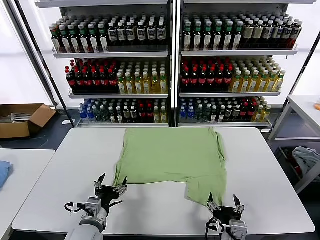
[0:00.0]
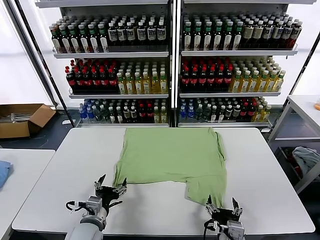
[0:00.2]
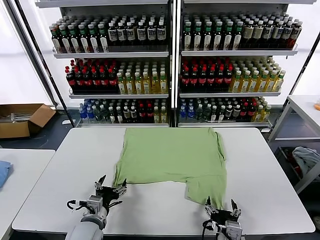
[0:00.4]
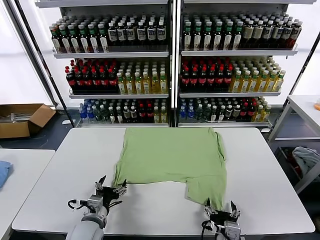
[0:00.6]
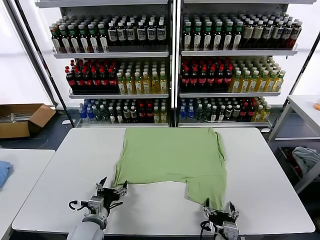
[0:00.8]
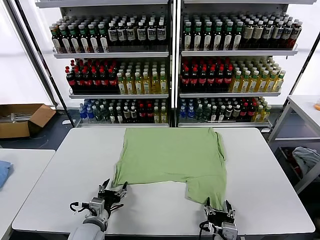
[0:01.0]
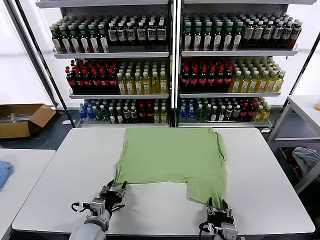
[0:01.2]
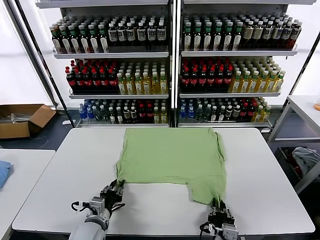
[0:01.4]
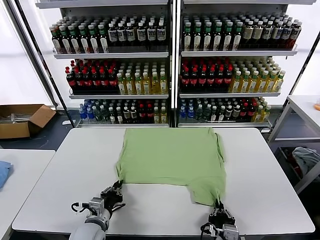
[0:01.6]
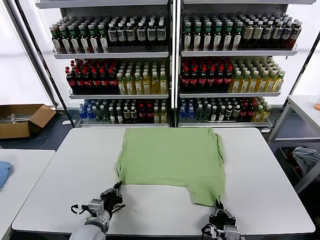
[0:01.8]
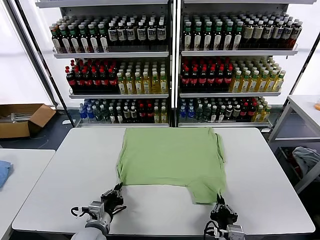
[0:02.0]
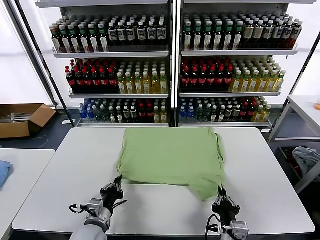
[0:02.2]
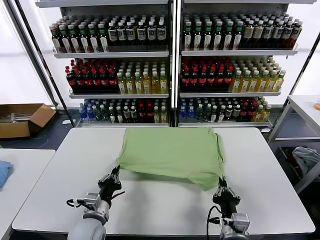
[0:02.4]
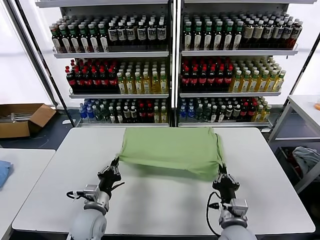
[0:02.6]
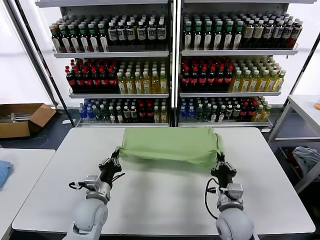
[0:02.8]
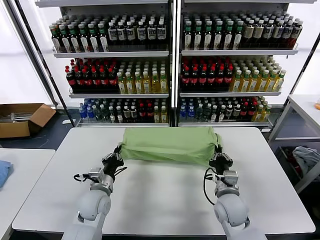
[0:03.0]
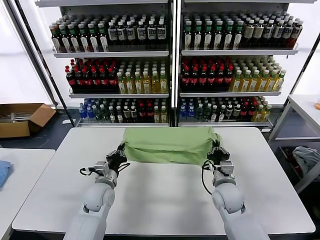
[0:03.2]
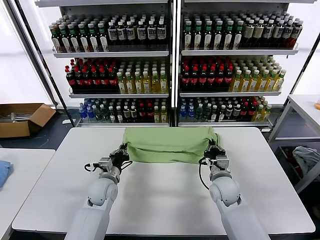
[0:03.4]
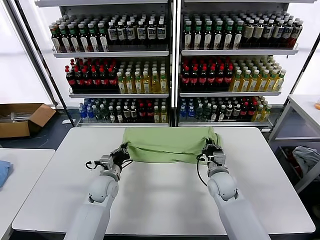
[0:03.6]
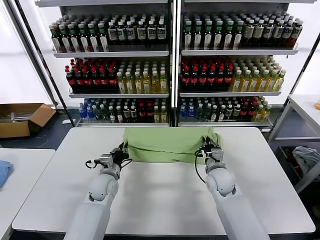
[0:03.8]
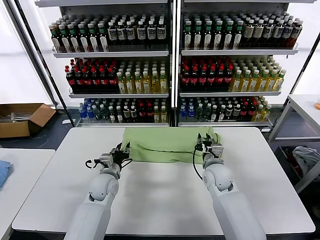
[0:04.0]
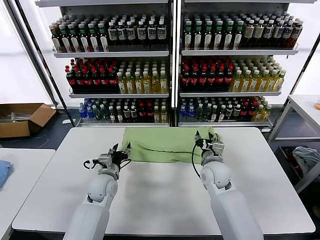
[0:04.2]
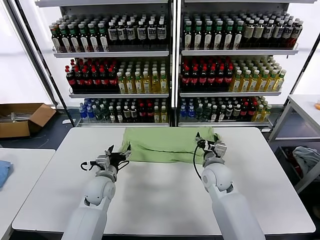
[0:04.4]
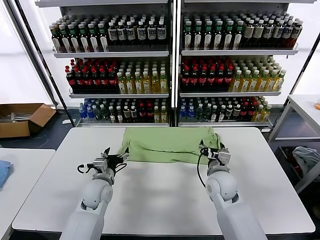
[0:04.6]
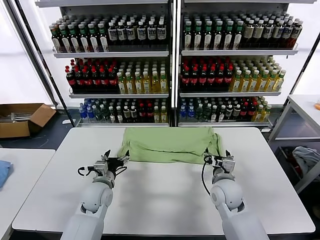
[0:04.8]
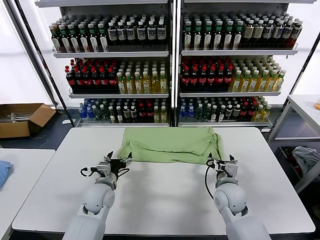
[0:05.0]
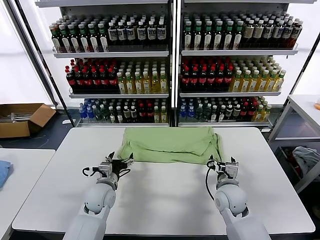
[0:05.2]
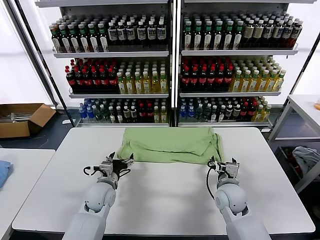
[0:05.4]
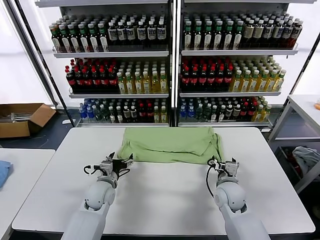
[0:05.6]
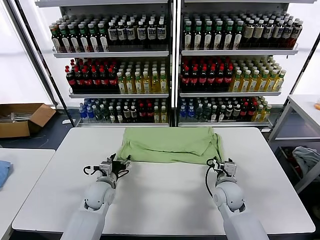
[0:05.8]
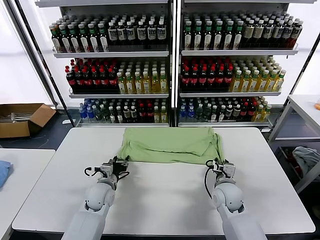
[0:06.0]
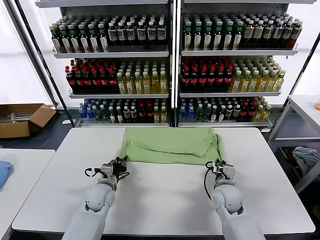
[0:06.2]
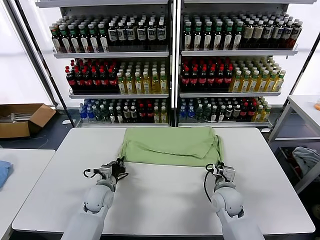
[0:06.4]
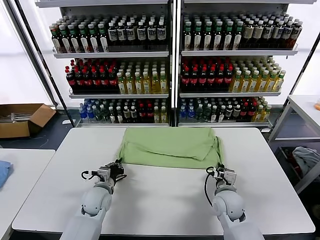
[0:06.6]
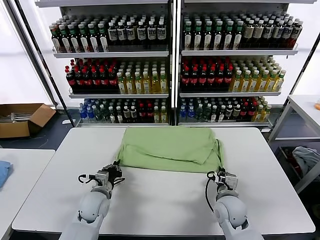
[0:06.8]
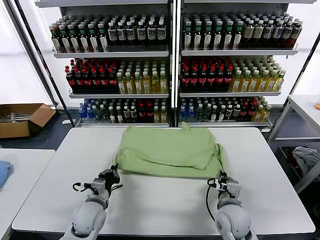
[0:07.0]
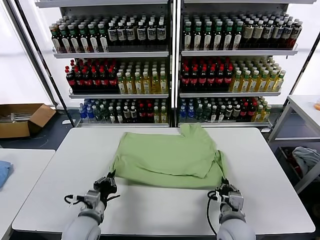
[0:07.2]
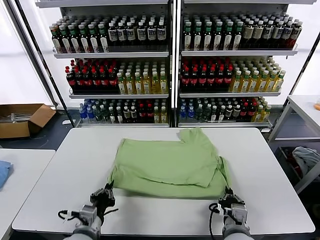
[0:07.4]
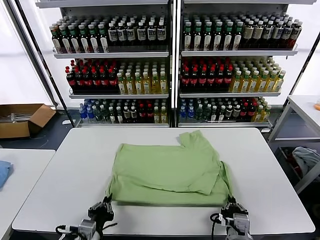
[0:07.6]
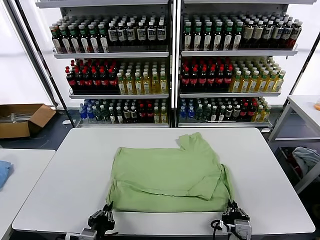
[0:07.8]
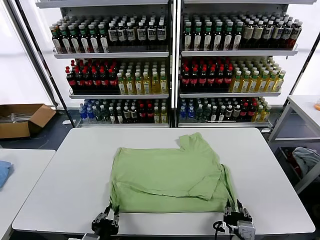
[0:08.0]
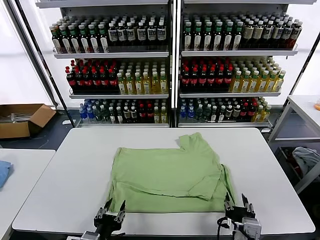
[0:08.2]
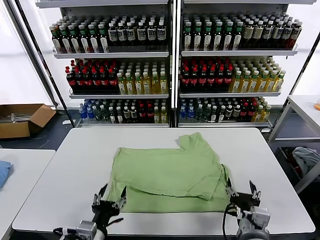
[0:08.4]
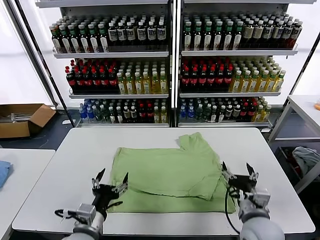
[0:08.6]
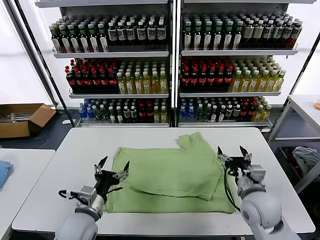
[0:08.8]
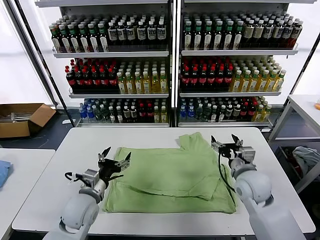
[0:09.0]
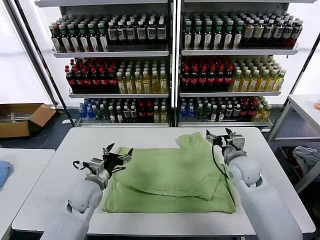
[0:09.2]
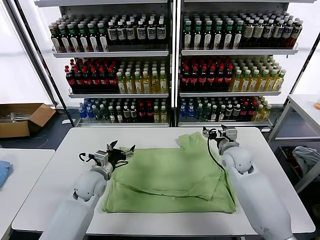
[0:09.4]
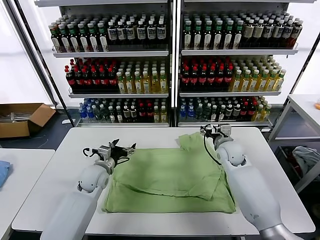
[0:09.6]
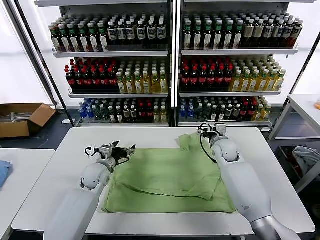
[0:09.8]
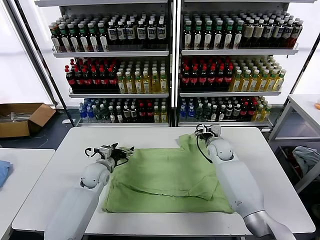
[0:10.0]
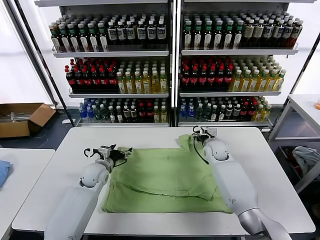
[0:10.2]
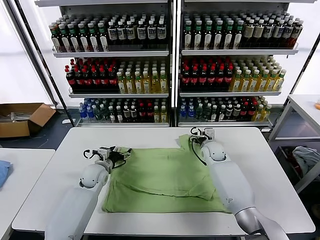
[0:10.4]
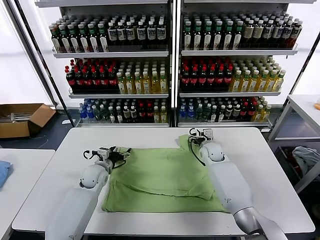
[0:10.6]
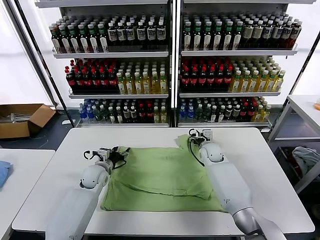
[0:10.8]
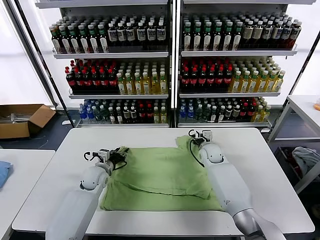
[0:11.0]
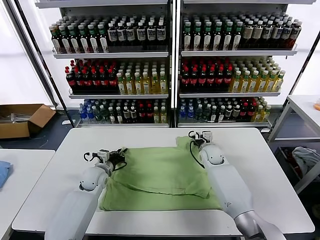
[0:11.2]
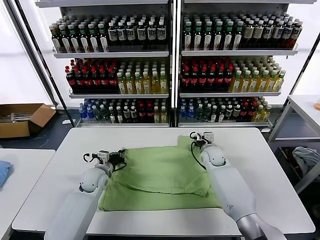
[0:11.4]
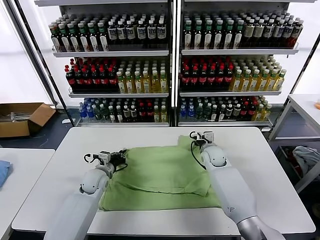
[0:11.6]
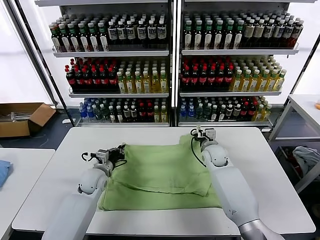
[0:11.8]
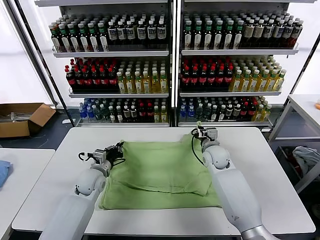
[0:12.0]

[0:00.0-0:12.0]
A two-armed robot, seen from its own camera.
Task of the whole recording: fold and organize the clothes.
Step, 0:00.0 to 0:01.8: use both grippers simultaneously to clamp the lower edge of the clothing fabric.
Step, 0:02.0 to 0:04.0: use both grippers to drag the lower edge of the fabric forward and fold it over the upper edge.
Step, 0:04.4 to 0:08.0: Drag the clothes downward with both gripper.
Step, 0:08.2 to 0:11.4: use both grippers simultaneously to clamp the upper edge of the clothing fabric.
0:01.6 to 0:03.0: The left gripper moves forward, about 10 cm. The right gripper heads forward, covering some 20 cm.
0:03.0 to 0:04.4: The right gripper opens; the left gripper opens its fingers.
0:04.4 to 0:06.0: The left gripper closes its fingers. The right gripper moves downward, about 5 cm, and closes its fingers.
0:06.0 to 0:07.6: Both grippers travel together backward, about 20 cm. The left gripper closes its fingers.
0:07.6 to 0:09.0: The right gripper shifts about 20 cm forward, and opens, while the left gripper moves forward, about 15 cm, and opens up.
0:09.0 to 0:10.4: Both grippers move forward and downward, approximately 15 cm.
0:10.4 to 0:12.0: The left gripper closes up. The right gripper heads backward, covering approximately 5 cm, and closes up.

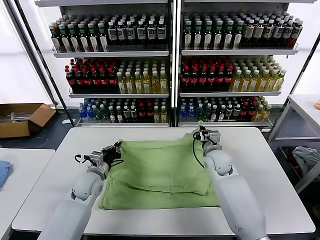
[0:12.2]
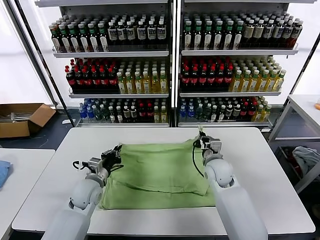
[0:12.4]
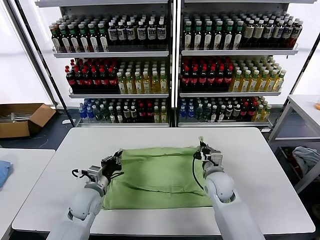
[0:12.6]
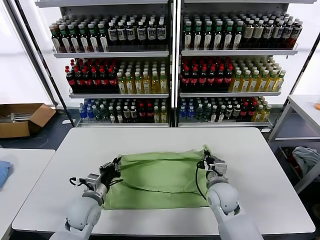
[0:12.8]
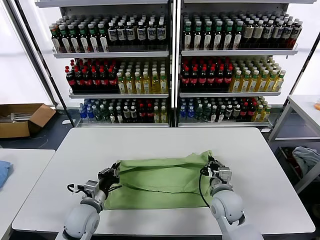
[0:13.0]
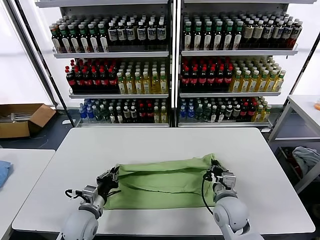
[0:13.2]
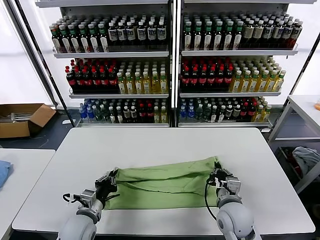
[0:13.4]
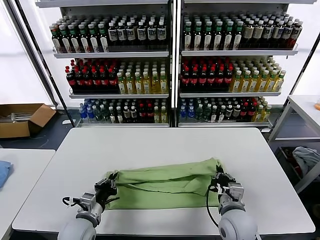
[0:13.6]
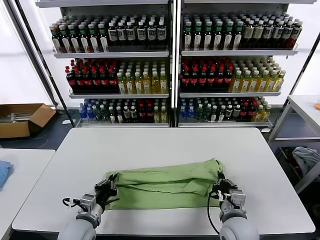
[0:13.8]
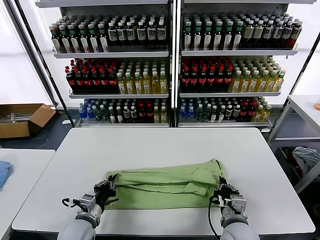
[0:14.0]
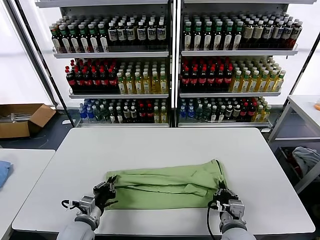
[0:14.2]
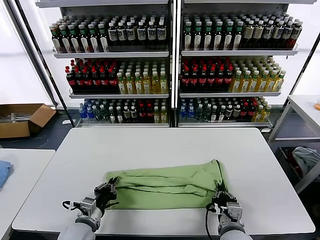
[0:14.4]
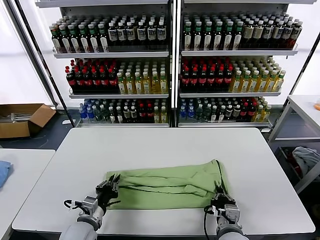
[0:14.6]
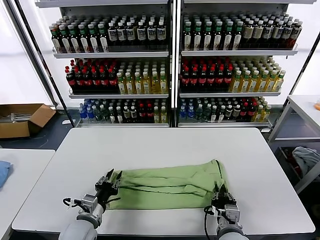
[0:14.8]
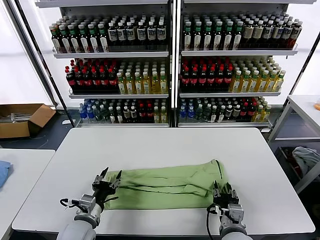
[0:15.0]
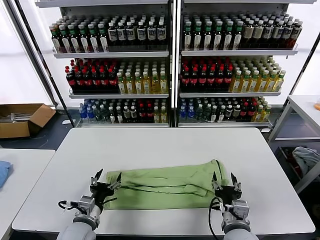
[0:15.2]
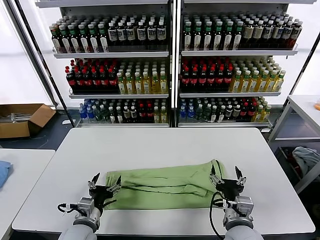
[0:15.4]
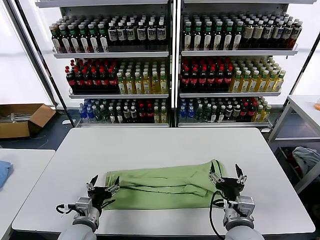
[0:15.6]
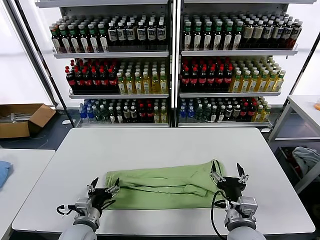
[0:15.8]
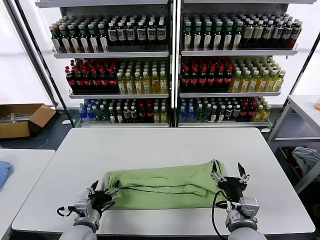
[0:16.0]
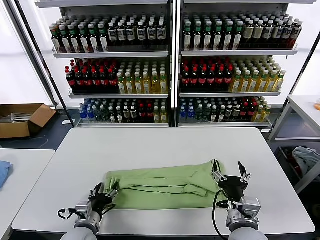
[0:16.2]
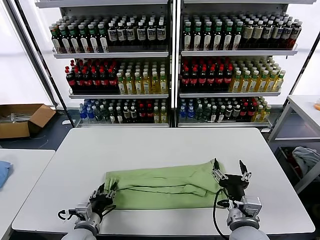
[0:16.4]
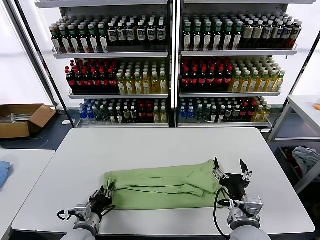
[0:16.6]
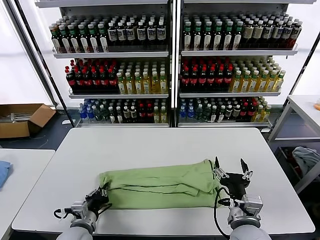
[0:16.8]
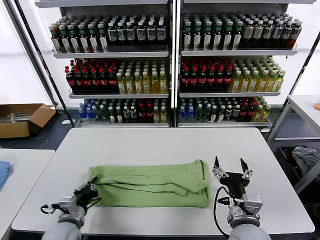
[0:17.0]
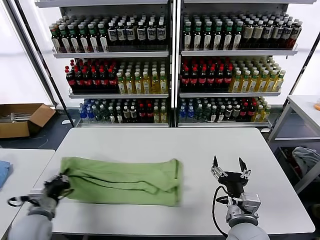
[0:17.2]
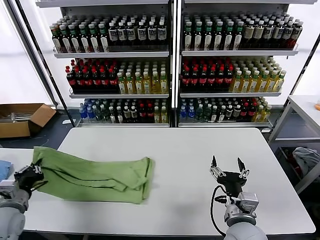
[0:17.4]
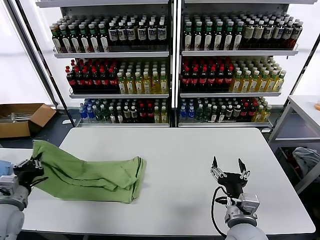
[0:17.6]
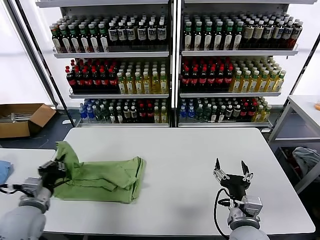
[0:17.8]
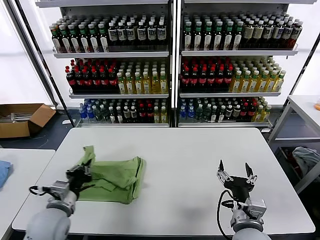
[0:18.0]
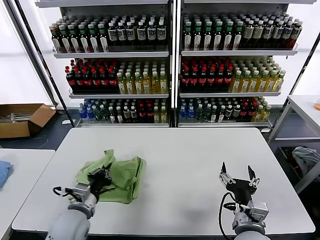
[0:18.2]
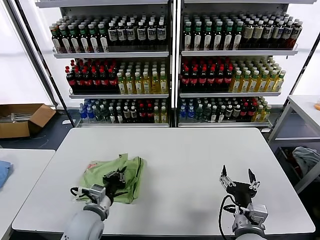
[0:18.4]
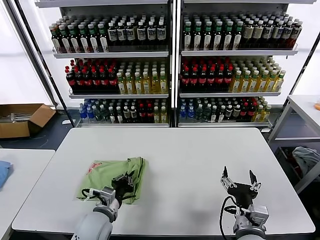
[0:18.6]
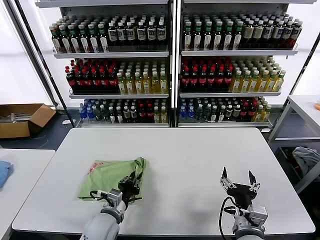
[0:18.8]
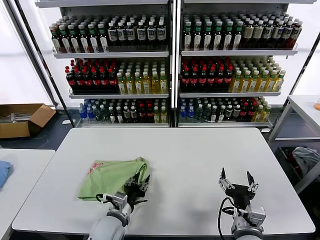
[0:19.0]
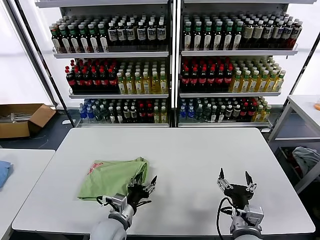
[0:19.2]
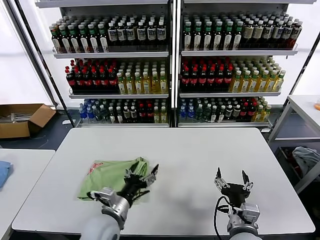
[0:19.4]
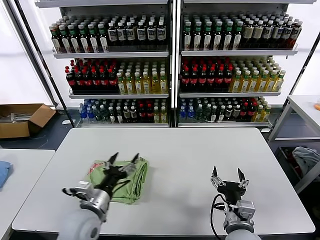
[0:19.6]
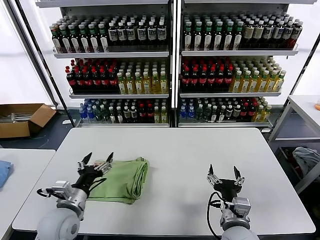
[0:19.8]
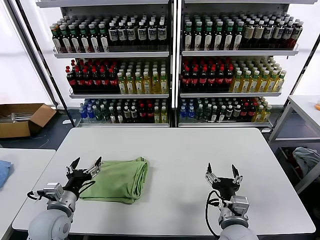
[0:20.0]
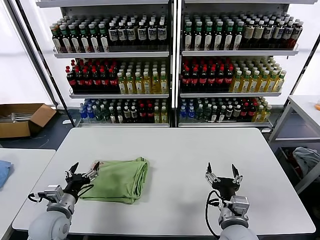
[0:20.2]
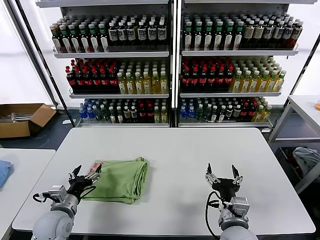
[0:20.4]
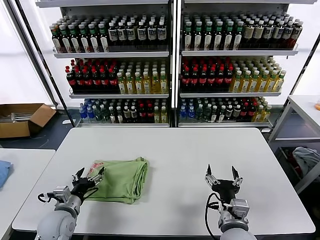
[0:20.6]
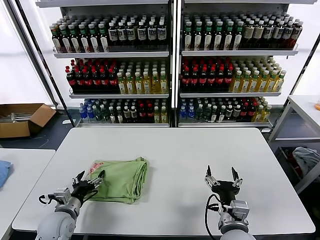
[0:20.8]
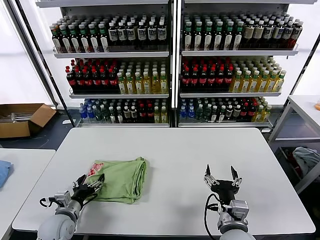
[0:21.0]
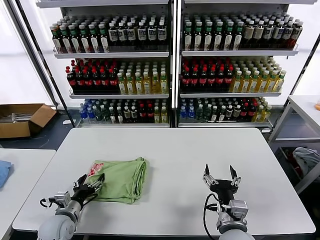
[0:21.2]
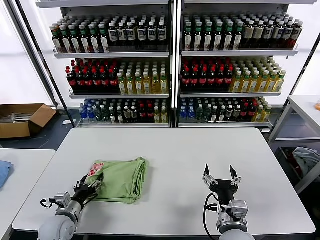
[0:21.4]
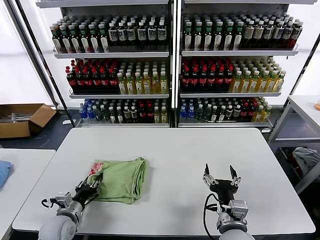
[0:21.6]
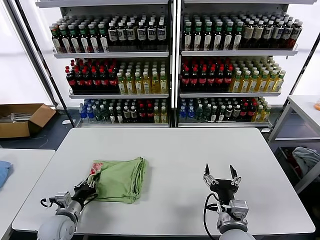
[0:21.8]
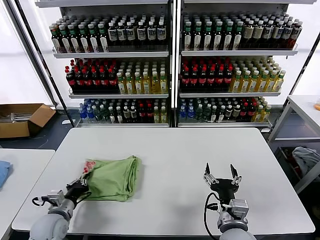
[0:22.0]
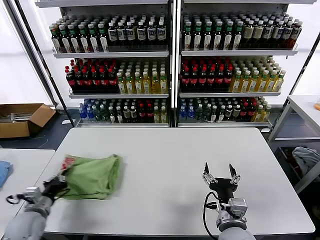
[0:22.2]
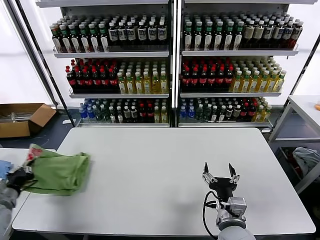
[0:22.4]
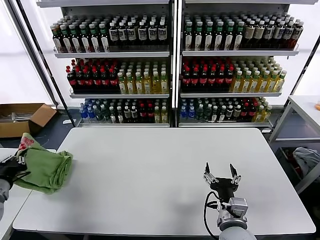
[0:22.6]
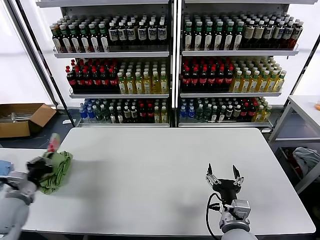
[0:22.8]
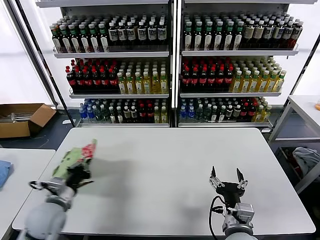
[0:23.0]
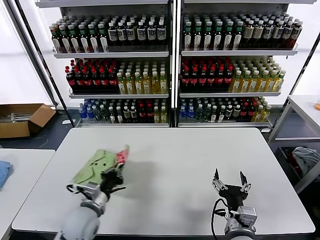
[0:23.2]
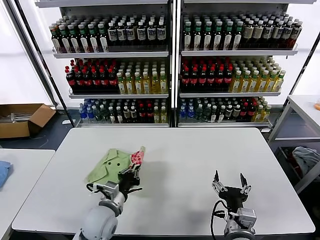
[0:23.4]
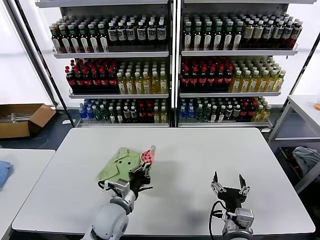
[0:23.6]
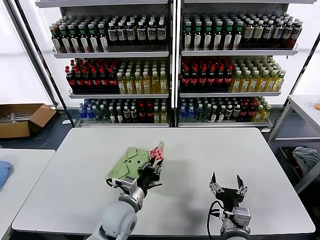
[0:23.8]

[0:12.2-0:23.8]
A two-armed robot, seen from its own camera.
Task of the whole recording: fold and organize the clothes.
Step, 0:12.2 to 0:15.2: use both grippers to drag the upper edge of the fabric backward and fold it over the lower edge.
Step, 0:15.4 to 0:16.6: use the left gripper to clamp the left edge of the fabric.
Step, 0:16.8 to 0:19.2: use the left gripper to drag the left edge of the fabric to the left and folds it over the right edge.
0:12.2 to 0:13.6: Both grippers travel together backward, about 20 cm.
0:13.6 to 0:15.0: The right gripper opens, while the left gripper opens its fingers.
0:15.0 to 0:16.6: The right gripper heads upward, covering about 5 cm, and opens. The left gripper opens and closes again.
0:16.6 to 0:18.0: The left gripper shifts about 10 cm upward, and moves roughly 20 cm to the left and comes back.
0:18.0 to 0:19.4: The left gripper travels to the right by roughly 15 cm, and opens.
0:19.4 to 0:21.0: The left gripper is displaced to the left and downward by about 20 cm.
0:21.0 to 0:22.4: The left gripper is displaced to the left and upward by about 15 cm, and closes up.
0:22.4 to 0:23.8: The left gripper moves to the right, some 35 cm.
